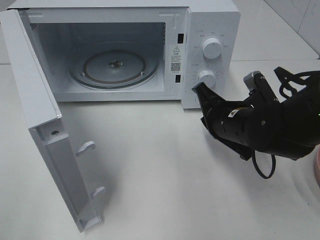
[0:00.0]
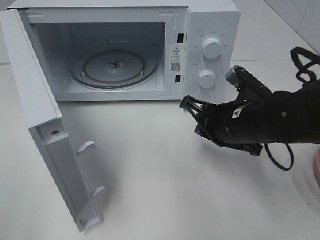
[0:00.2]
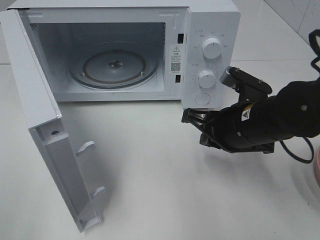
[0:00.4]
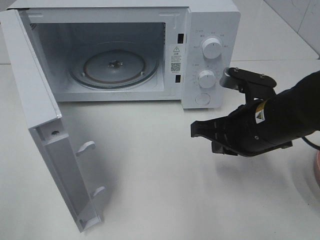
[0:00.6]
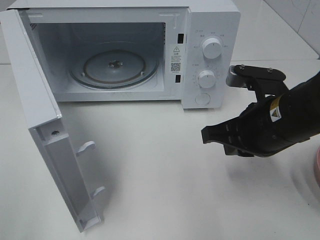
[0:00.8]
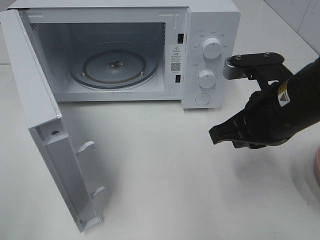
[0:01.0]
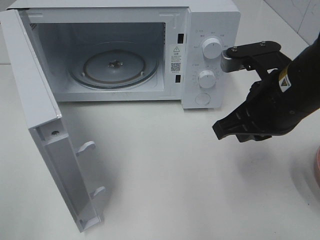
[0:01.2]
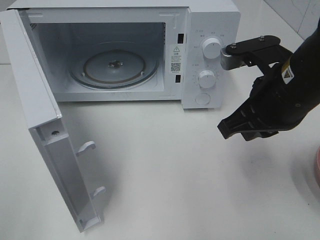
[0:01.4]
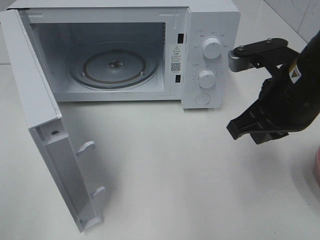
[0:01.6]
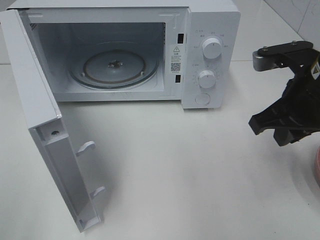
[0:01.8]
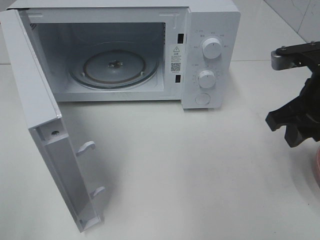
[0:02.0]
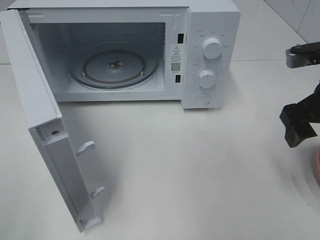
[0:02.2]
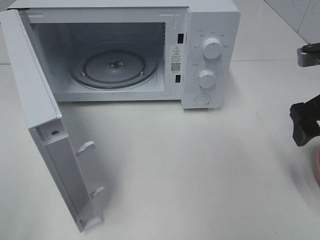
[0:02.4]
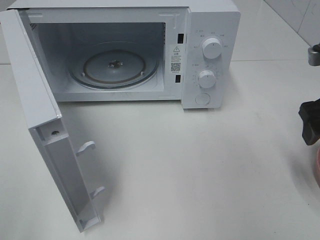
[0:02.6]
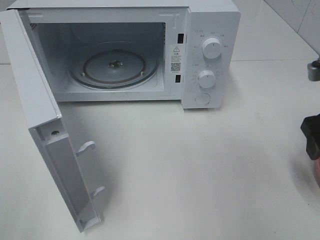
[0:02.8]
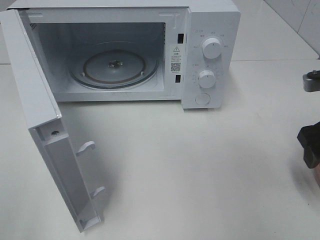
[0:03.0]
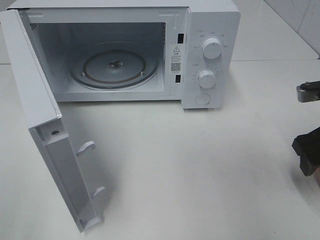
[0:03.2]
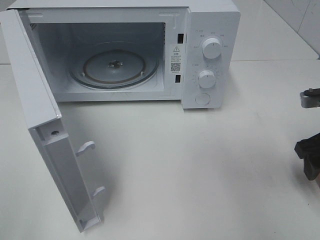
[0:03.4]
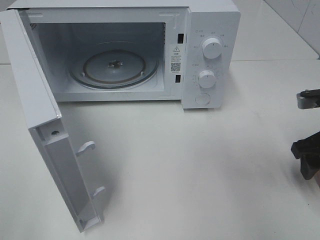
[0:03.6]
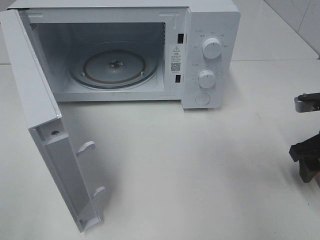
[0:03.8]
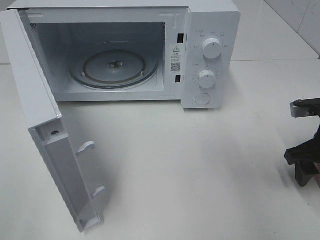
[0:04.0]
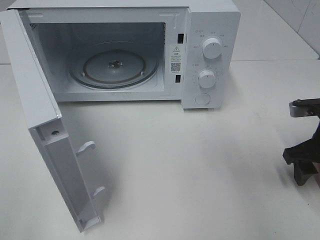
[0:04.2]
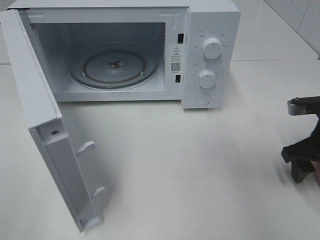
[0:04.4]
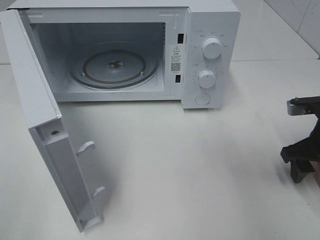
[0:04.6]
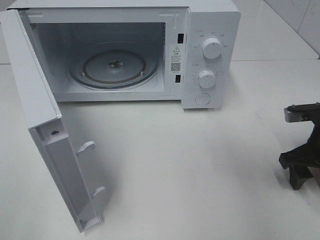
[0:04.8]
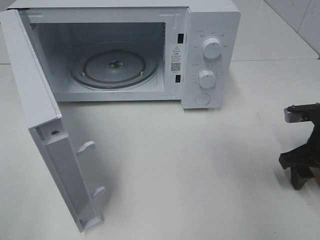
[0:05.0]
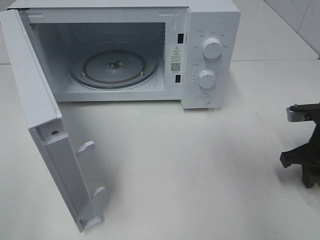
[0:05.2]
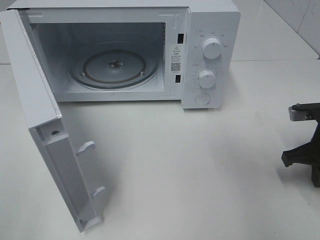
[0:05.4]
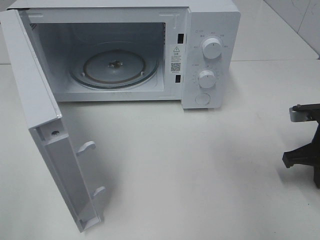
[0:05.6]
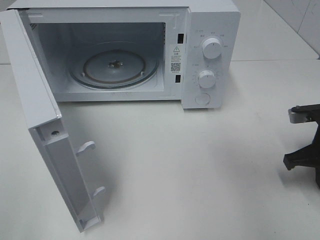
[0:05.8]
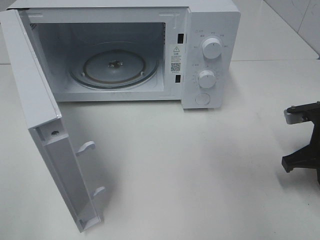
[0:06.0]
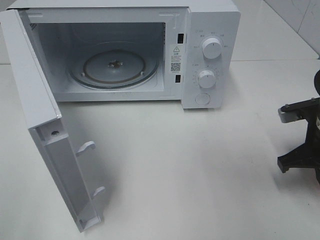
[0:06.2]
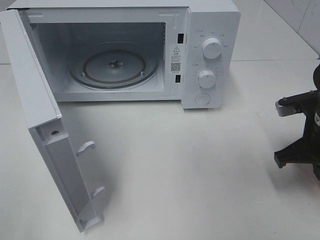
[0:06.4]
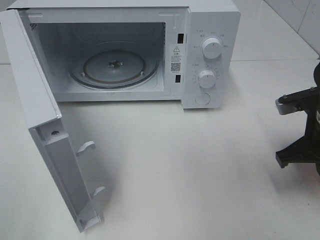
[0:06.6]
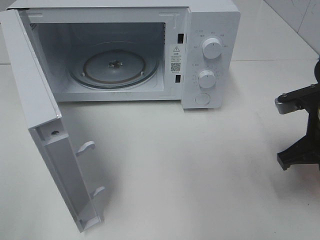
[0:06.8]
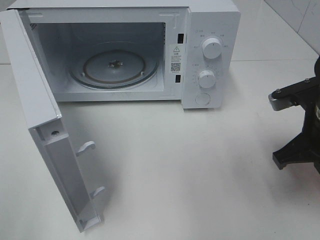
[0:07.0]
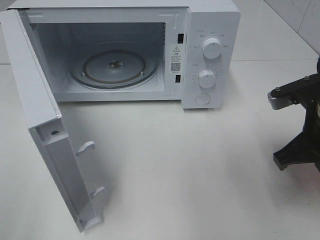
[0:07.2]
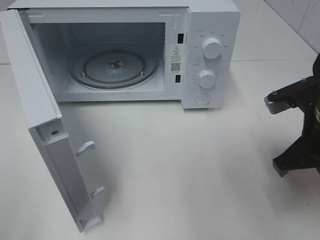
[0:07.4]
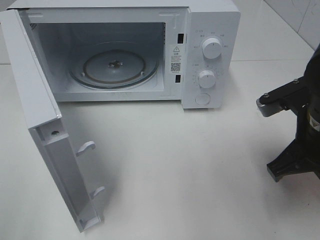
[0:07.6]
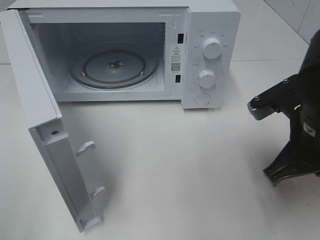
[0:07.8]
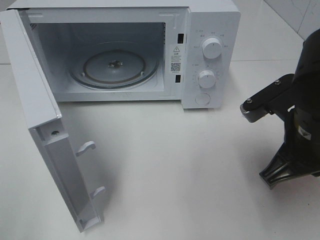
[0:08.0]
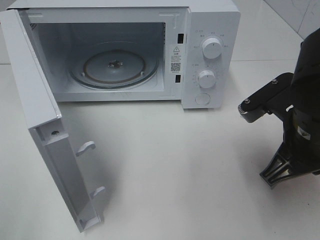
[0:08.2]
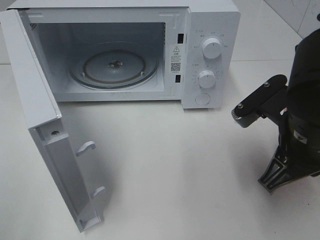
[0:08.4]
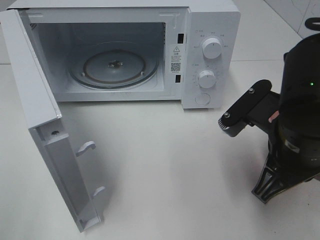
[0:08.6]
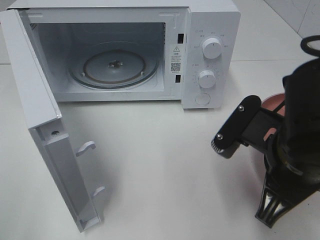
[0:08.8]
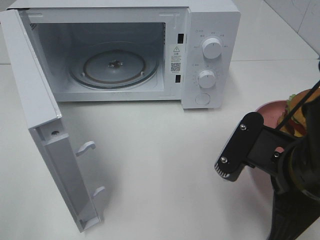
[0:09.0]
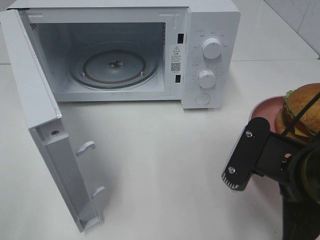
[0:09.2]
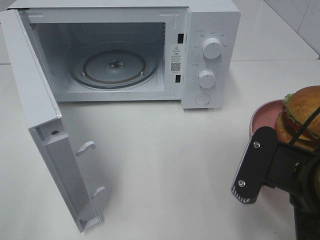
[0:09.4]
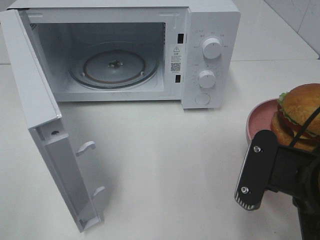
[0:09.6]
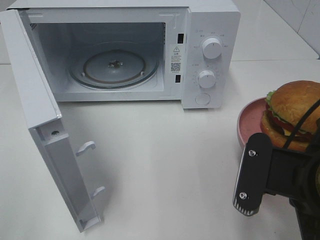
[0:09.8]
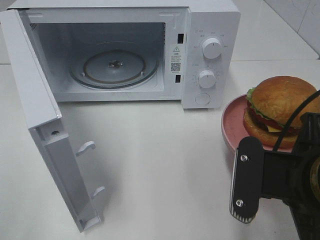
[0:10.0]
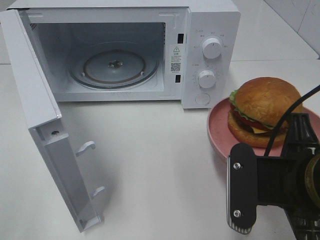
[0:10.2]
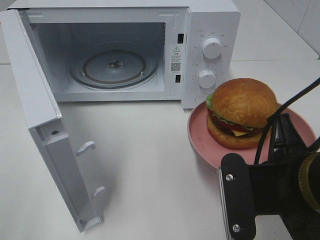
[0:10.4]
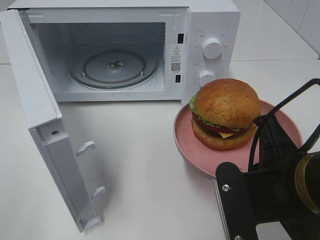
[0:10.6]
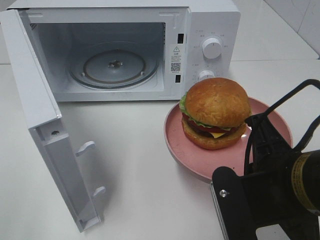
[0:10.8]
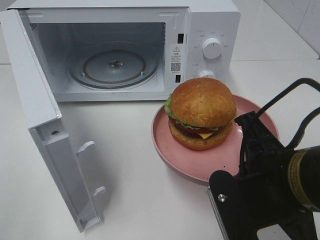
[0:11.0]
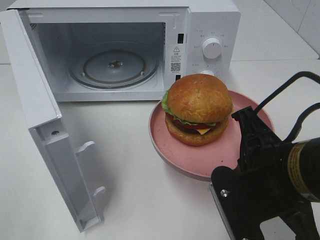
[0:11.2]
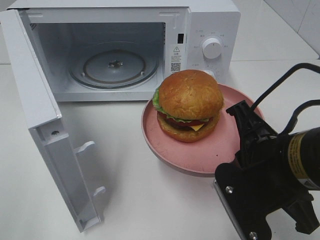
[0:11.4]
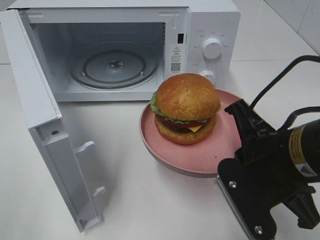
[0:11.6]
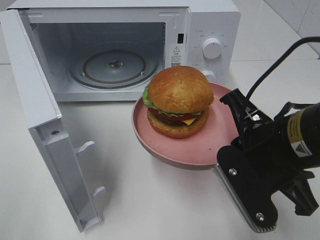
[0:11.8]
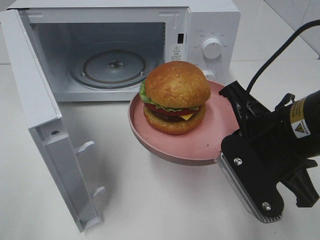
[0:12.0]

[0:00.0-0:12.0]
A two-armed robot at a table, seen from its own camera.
Task of the whole recording: Heat the burger.
Step, 0:00.0 to 0:05.8: Right hand: grab the plate with the hamburger.
0:00.0 to 0:01.6: The right gripper goes some 10 cm upward.
0:01.6 to 0:03.0: The right gripper moves to the right, some 10 cm, and opens its fingers.
0:03.0 to 0:04.4: The right gripper travels downward by some 5 cm.
0:04.4 to 0:06.0: The right gripper closes its fingers.
0:06.0 to 0:07.6: The right gripper moves to the left, upward and backward, roughly 10 cm.
0:07.6 to 0:09.0: The right gripper heads backward, covering roughly 5 cm.
0:10.4 to 0:12.0: The right gripper moves forward, approximately 5 cm.

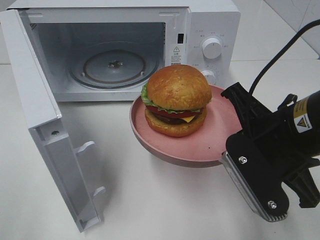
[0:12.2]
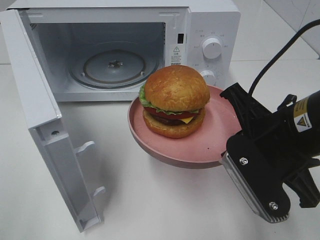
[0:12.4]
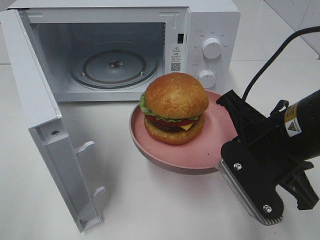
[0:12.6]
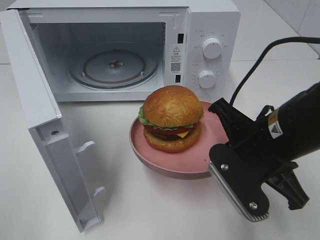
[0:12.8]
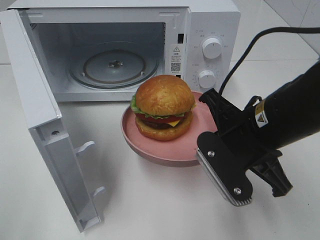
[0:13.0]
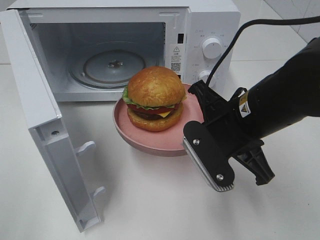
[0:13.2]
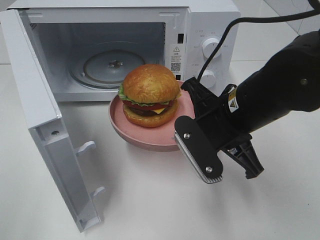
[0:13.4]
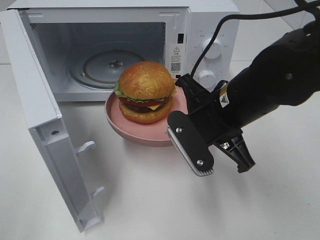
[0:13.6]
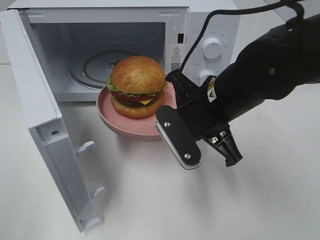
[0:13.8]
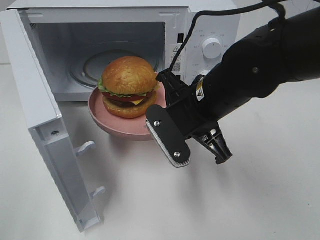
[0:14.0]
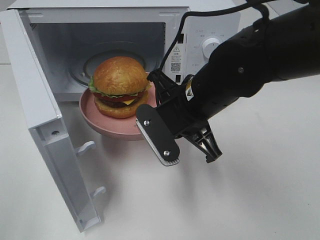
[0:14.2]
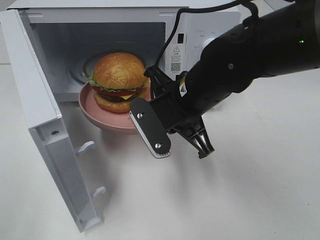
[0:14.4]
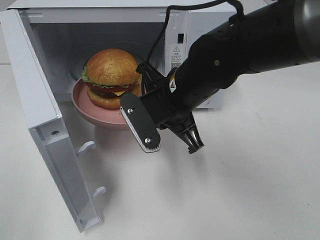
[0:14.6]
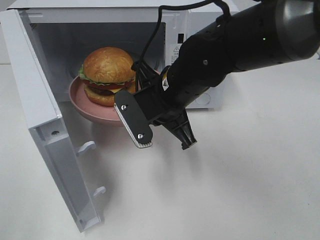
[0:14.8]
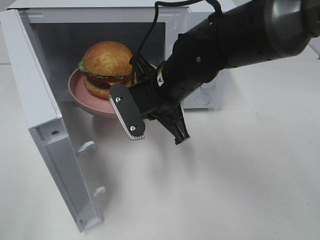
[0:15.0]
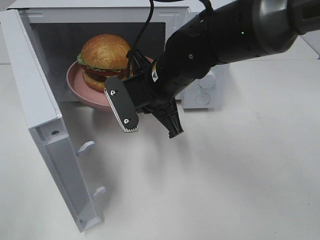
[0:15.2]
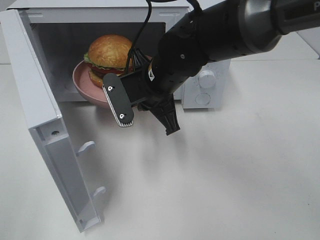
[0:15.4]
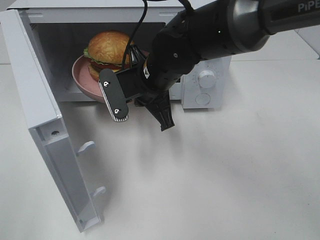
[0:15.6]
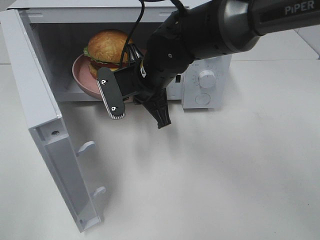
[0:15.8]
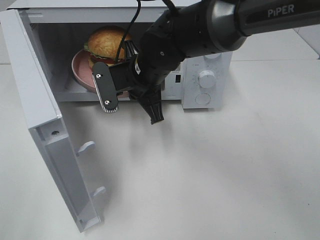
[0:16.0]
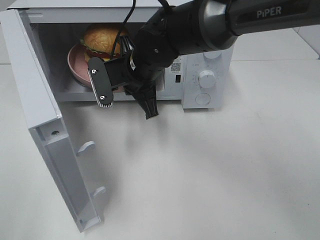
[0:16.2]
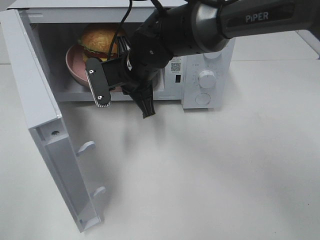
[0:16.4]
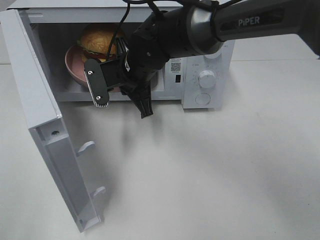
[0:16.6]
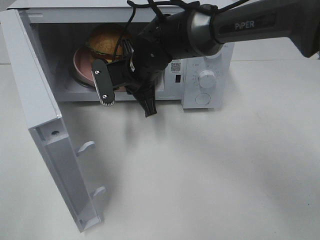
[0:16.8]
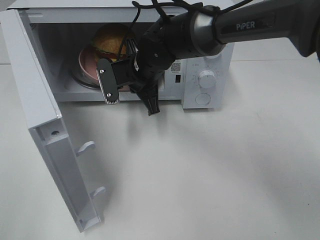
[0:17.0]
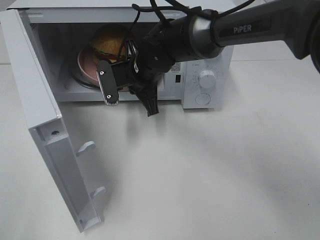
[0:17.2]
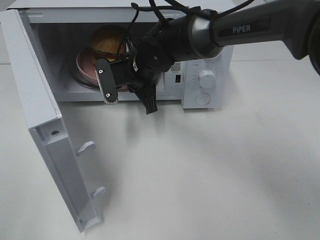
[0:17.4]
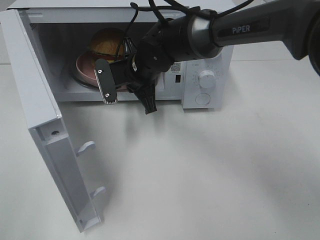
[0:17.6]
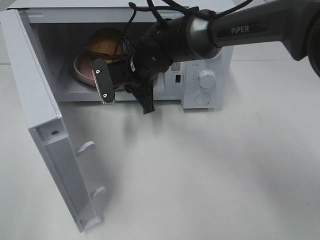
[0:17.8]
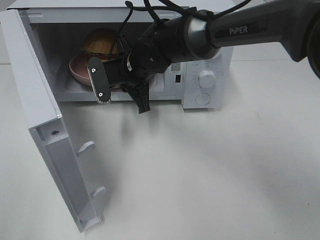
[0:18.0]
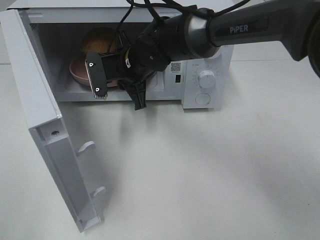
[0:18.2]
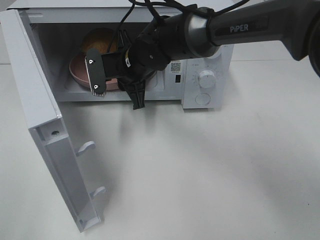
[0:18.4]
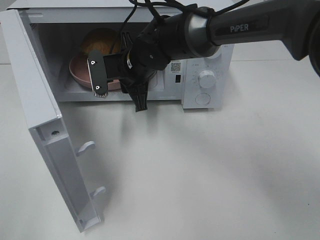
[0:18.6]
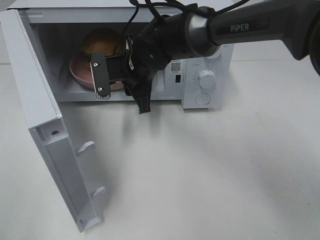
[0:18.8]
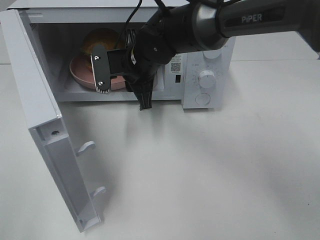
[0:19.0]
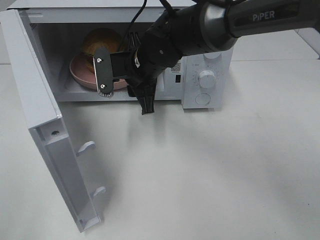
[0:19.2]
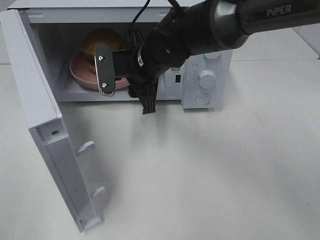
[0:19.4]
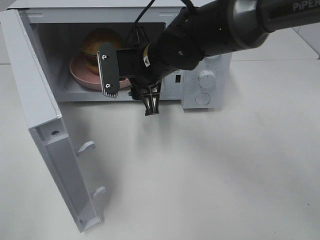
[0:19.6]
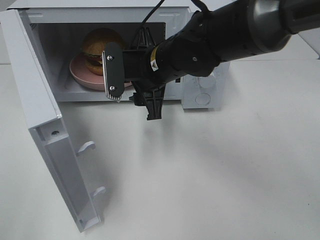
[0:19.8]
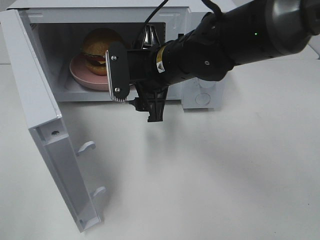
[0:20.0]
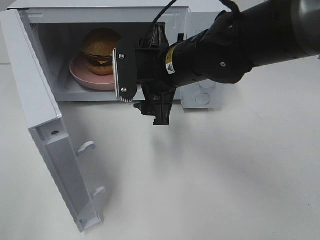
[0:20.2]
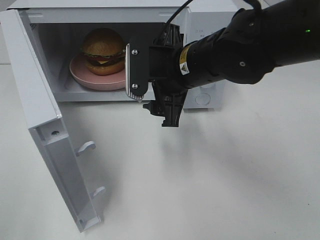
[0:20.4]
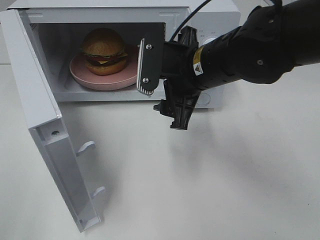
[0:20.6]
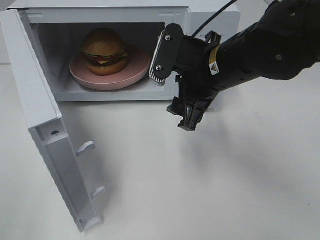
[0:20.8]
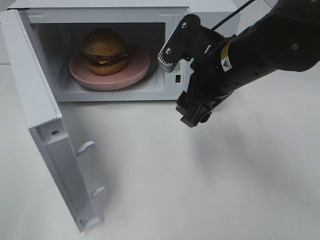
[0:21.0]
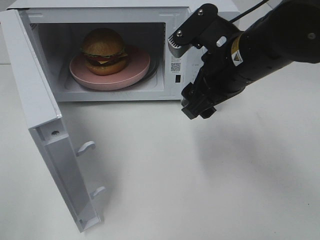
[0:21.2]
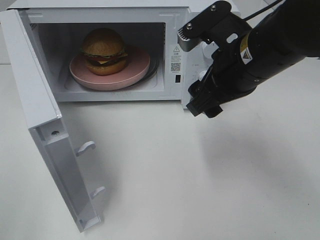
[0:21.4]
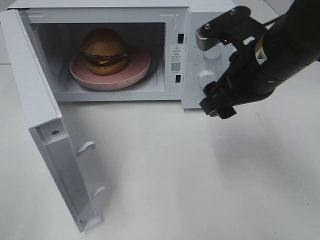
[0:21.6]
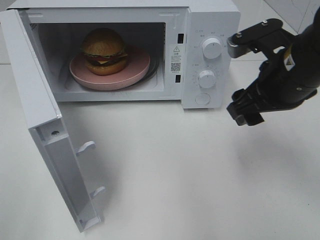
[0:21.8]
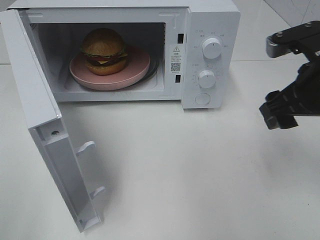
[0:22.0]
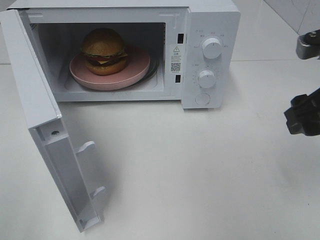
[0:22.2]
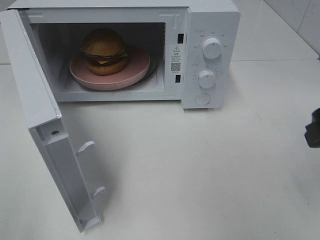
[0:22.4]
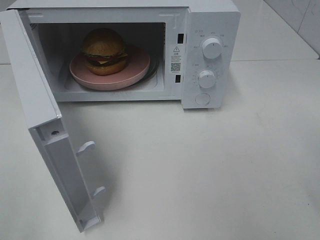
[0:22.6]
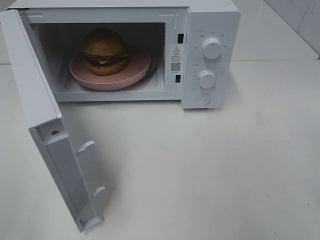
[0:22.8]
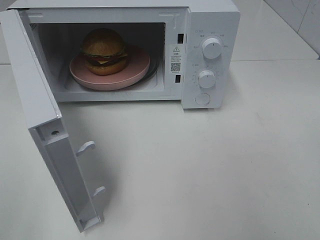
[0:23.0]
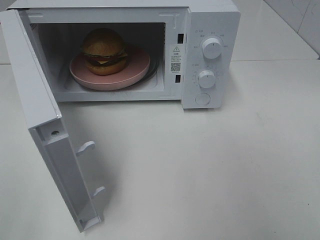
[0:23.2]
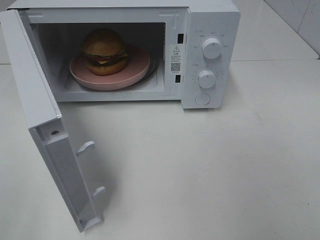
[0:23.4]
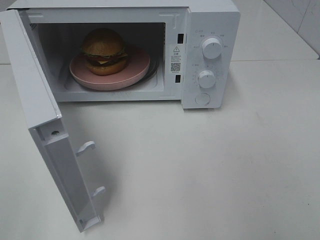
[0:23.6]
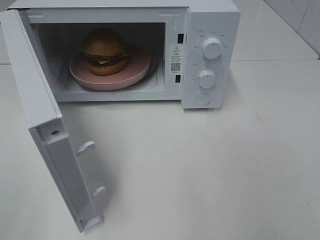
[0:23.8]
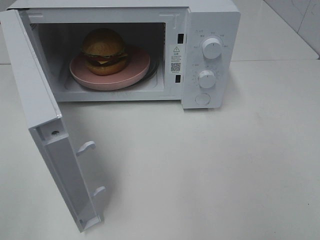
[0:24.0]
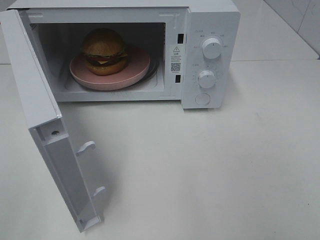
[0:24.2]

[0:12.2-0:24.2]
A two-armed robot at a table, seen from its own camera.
Task of the whole recording: Heat the burger.
Step, 0:12.2 to 0:18.4: Right hand: place the plate in the microwave.
0:12.2 to 0:13.8: The right gripper goes approximately 10 cm forward and to the left.
0:13.8 to 0:15.2: The right gripper shifts approximately 10 cm to the left and forward.
0:15.2 to 0:16.6: The right gripper is displaced forward by approximately 5 cm.
0:16.6 to 0:18.2: The grippers make only small movements.
0:18.2 to 0:19.8: The right gripper shifts roughly 5 cm backward, and opens up.
0:19.8 to 0:21.2: The right gripper moves to the right, backward and upward, approximately 15 cm.
0:21.2 to 0:22.6: The right gripper moves to the right and backward, roughly 20 cm.
